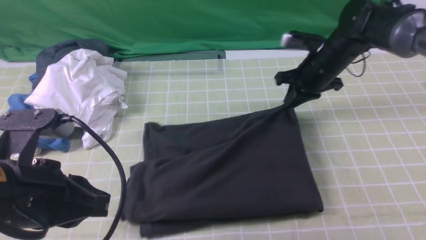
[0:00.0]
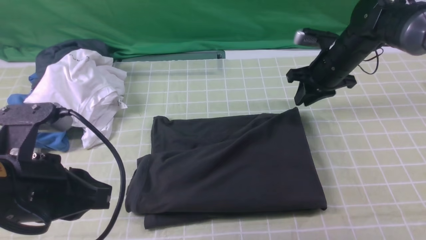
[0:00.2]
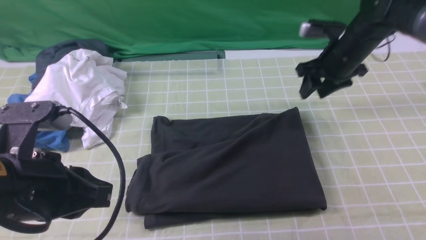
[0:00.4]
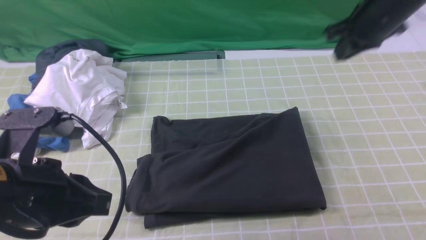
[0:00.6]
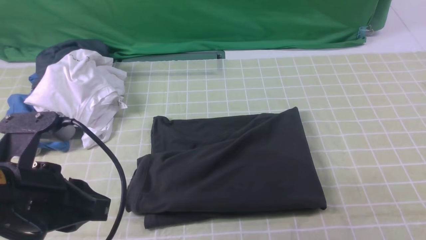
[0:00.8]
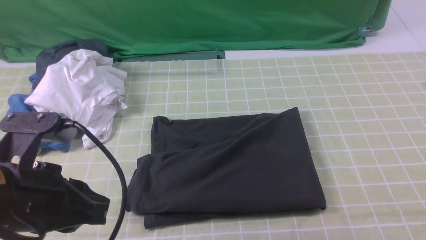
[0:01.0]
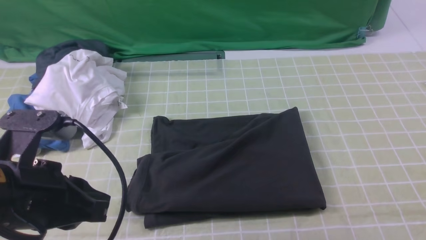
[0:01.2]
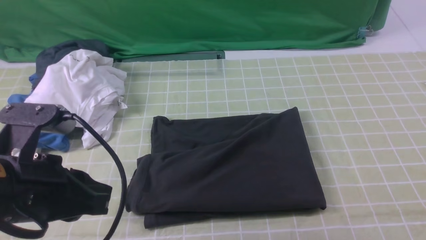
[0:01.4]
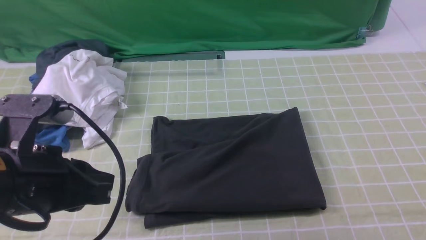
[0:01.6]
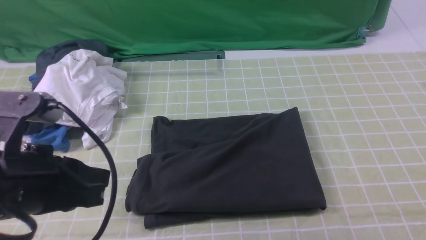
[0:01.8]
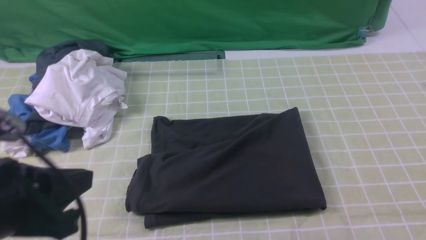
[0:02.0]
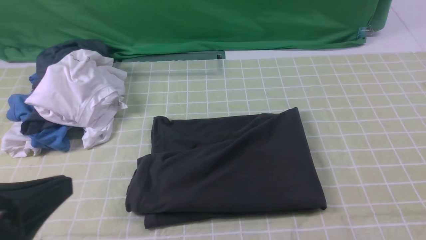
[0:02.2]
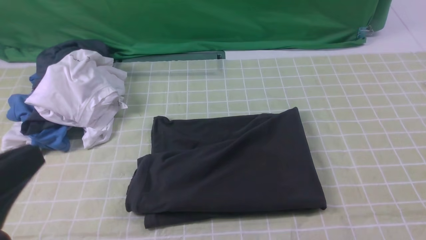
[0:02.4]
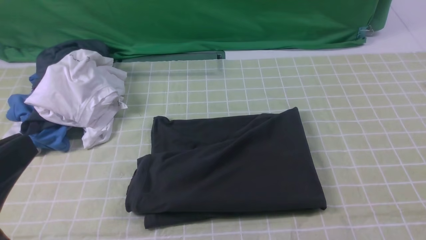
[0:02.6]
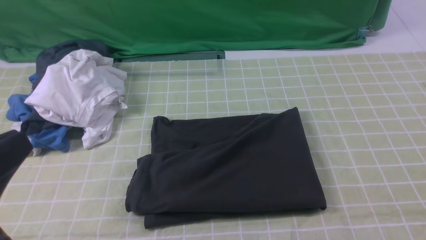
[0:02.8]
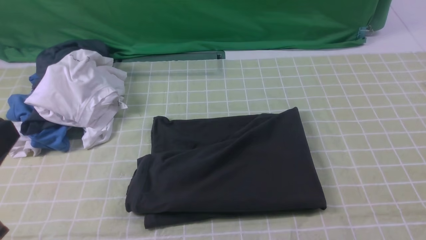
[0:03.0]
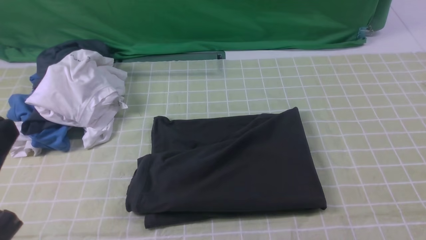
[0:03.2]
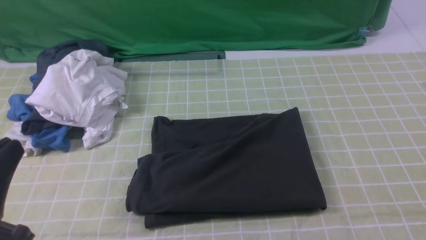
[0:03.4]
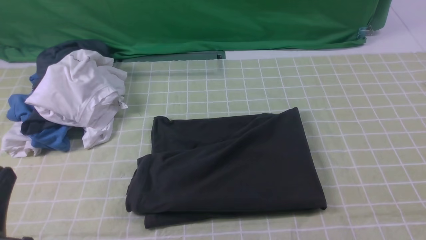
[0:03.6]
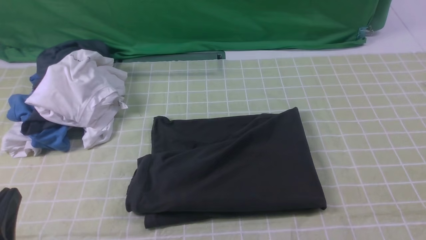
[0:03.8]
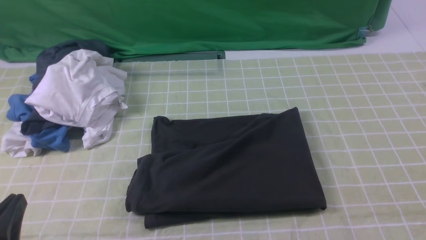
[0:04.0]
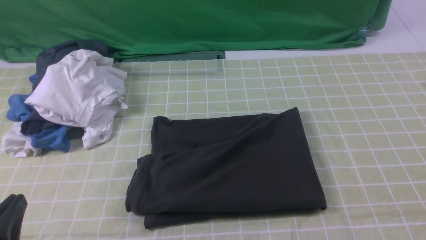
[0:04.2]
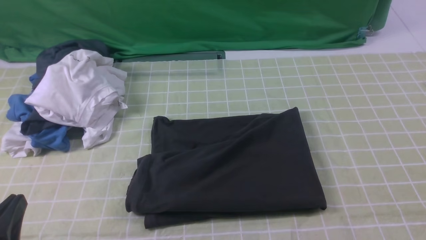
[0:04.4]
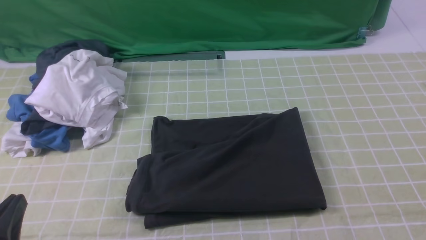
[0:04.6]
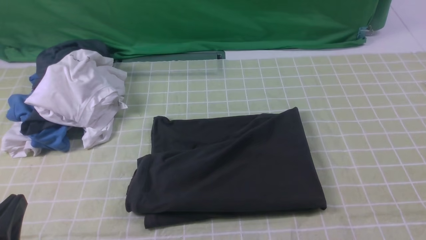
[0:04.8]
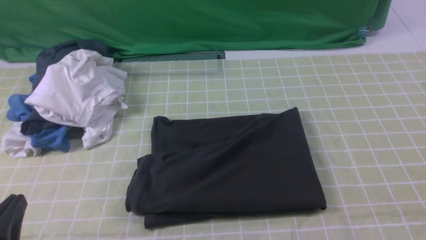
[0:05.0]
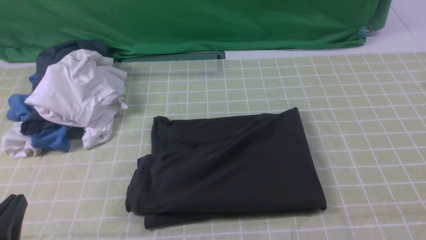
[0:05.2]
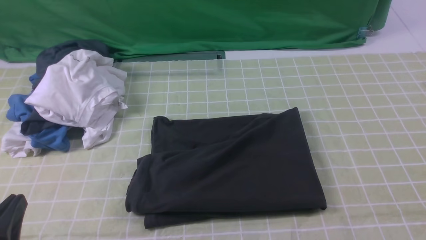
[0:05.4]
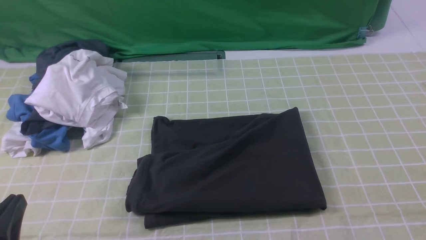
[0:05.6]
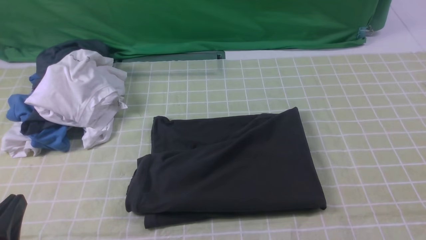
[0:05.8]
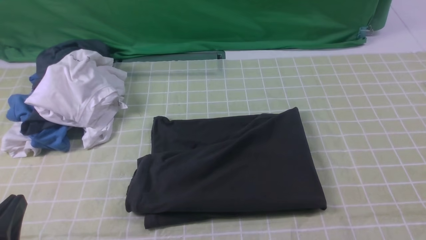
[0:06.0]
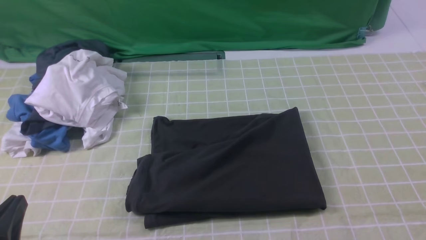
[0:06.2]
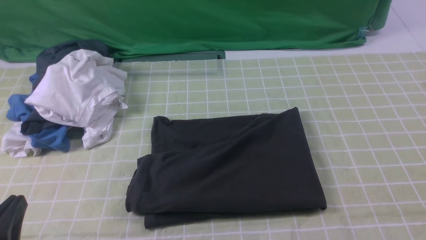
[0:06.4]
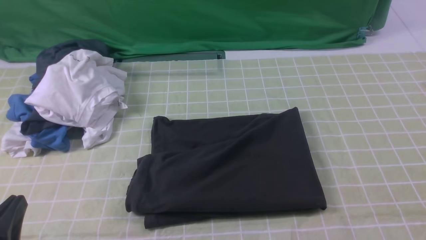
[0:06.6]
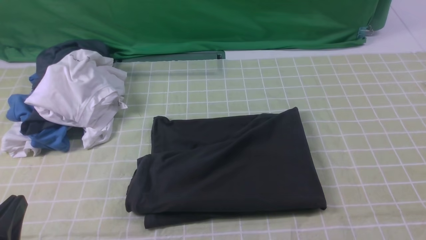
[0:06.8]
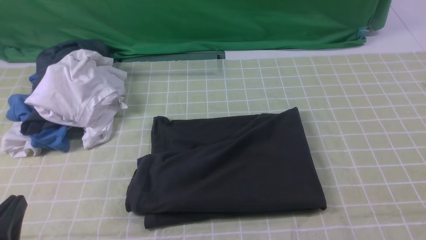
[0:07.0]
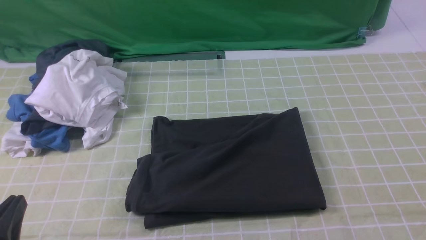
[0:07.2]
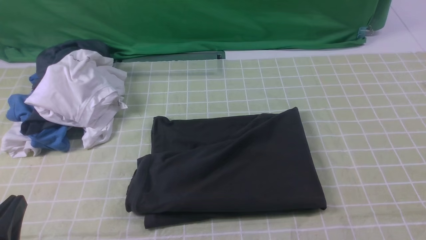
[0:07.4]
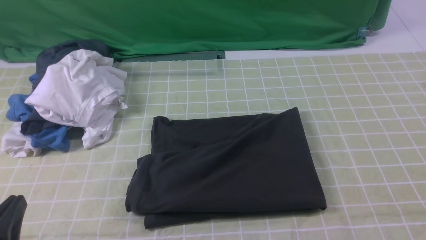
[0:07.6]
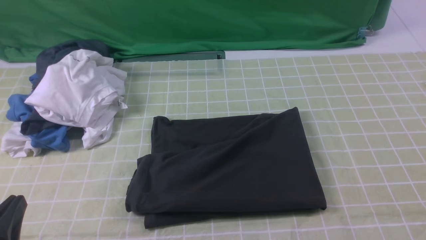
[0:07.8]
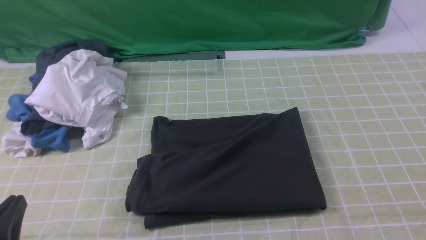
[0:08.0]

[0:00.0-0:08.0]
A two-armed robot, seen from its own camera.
0:00.0 to 0:01.6: The right gripper shifts approximately 40 cm backward.
0:01.6 to 0:03.2: The left gripper shifts roughly 10 cm backward.
0:03.2 to 0:04.8: The left gripper goes about 10 cm downward.
0:06.4 to 0:08.0: Both grippers stay put.
